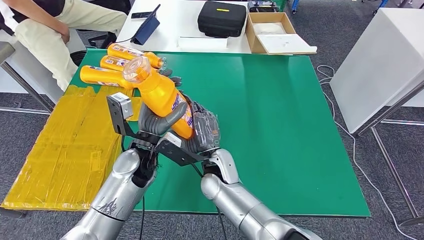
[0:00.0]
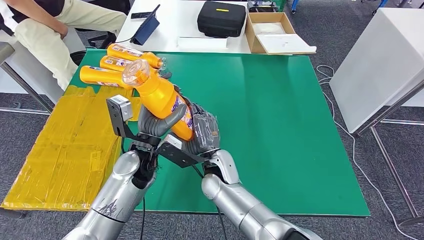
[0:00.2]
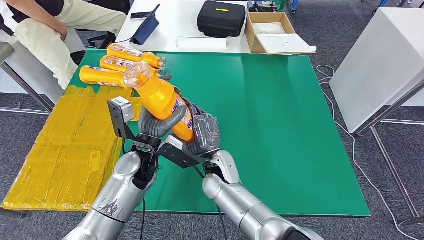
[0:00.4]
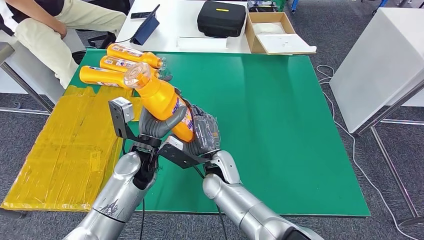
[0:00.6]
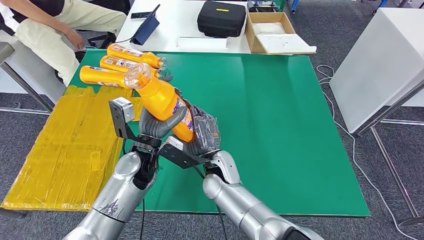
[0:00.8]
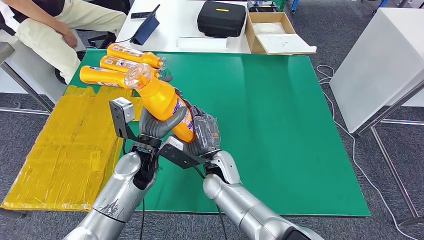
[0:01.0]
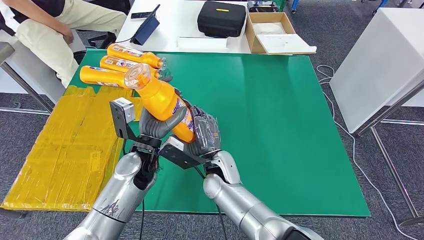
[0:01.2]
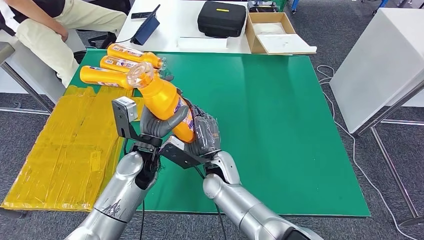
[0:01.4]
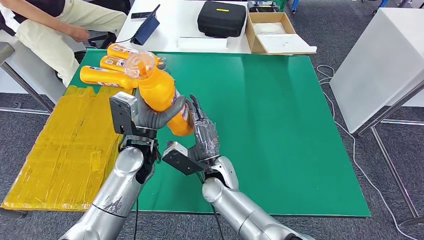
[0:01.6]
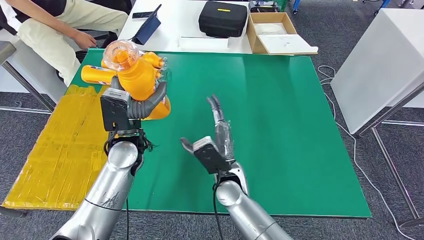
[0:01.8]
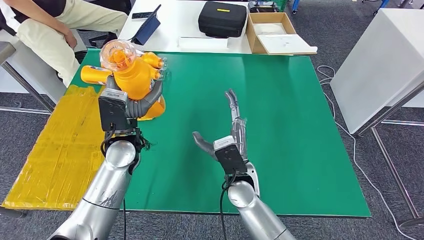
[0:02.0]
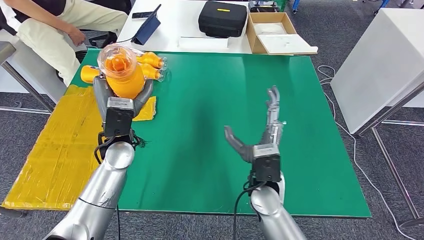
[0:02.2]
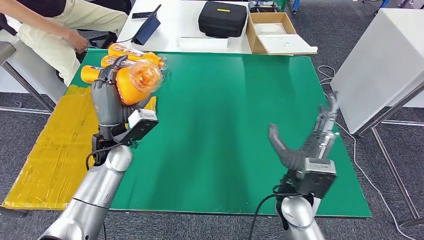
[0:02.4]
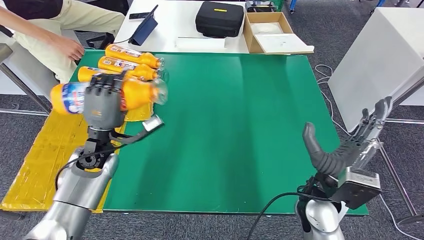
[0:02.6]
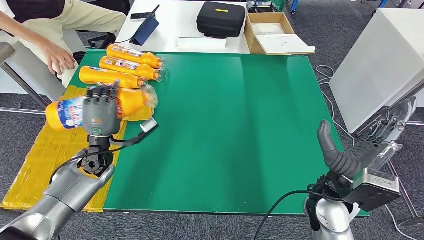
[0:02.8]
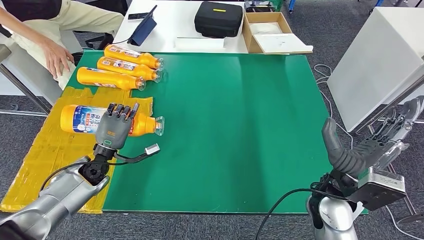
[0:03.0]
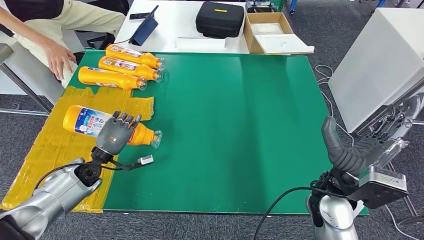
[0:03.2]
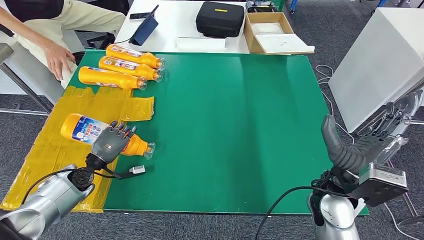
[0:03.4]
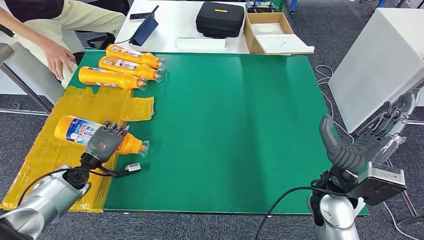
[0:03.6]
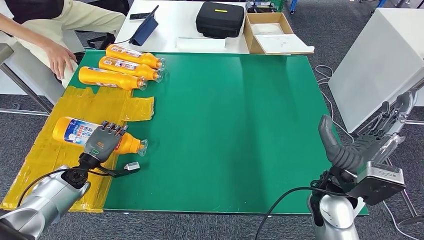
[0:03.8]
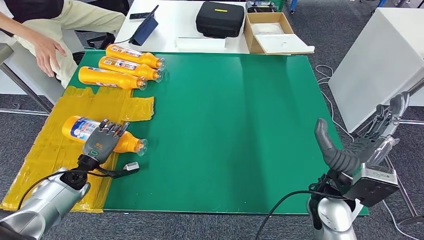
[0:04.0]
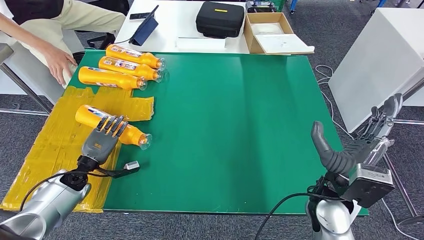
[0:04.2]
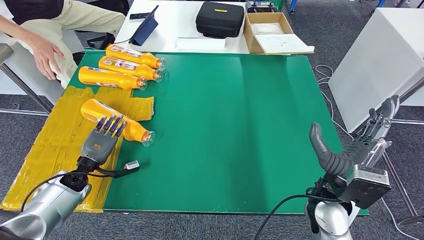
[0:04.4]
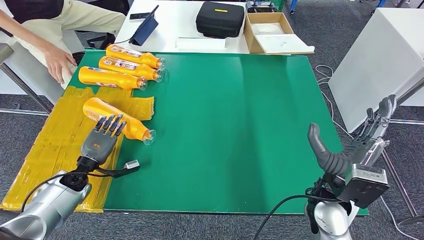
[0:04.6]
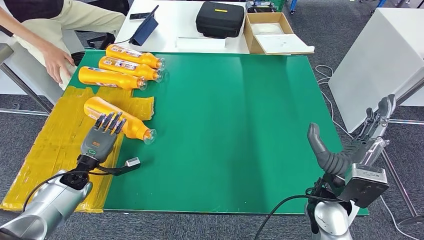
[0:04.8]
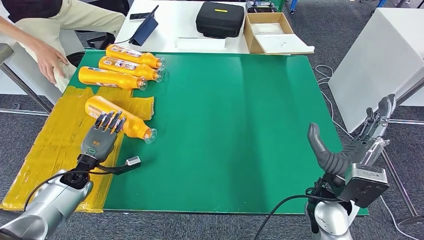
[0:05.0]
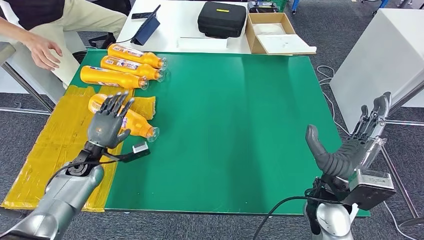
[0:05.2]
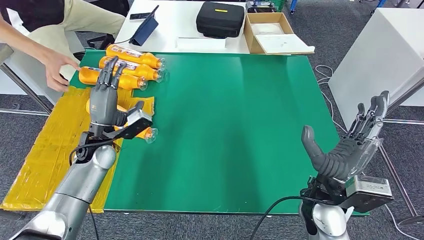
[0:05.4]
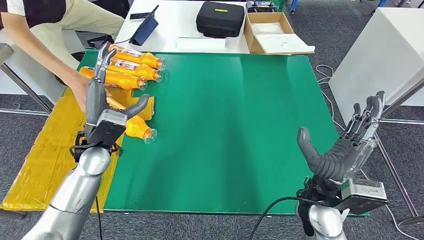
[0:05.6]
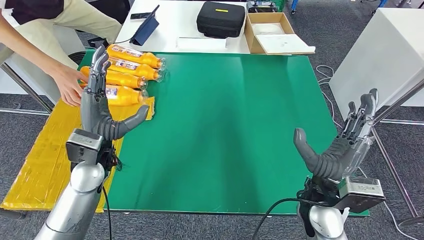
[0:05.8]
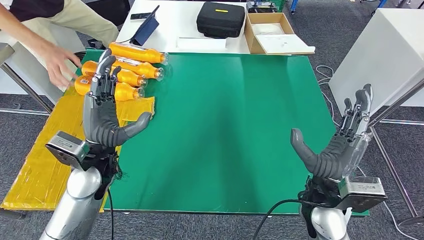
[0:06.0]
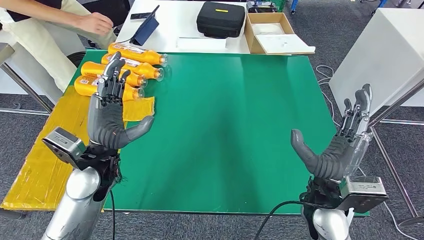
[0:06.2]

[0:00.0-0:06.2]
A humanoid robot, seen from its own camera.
Step, 0:00.0 to 0:06.2: Flip the bottle to face forward.
0:03.2 to 0:04.6: The left hand changes place by about 5 cm.
